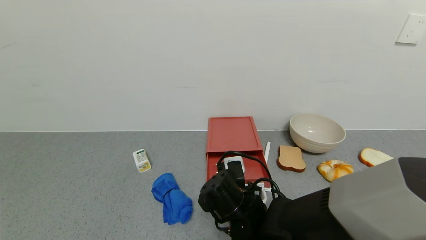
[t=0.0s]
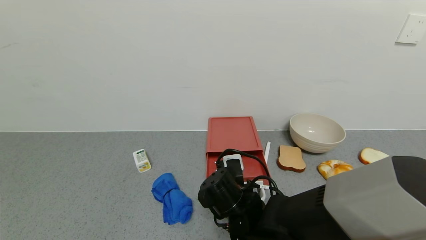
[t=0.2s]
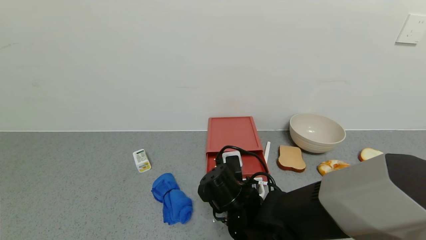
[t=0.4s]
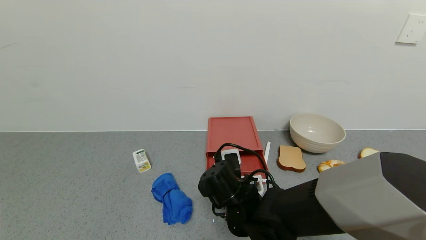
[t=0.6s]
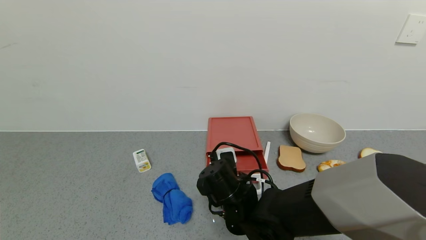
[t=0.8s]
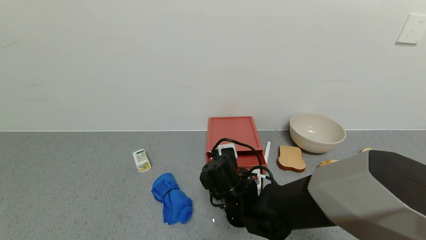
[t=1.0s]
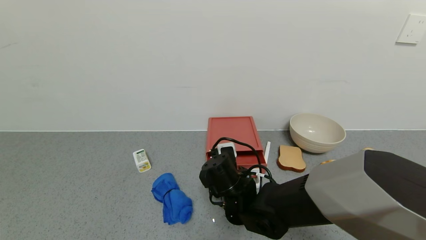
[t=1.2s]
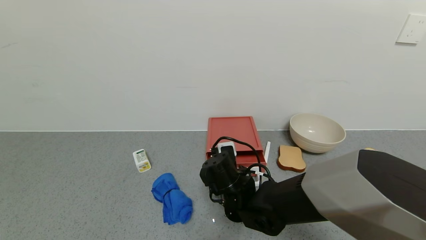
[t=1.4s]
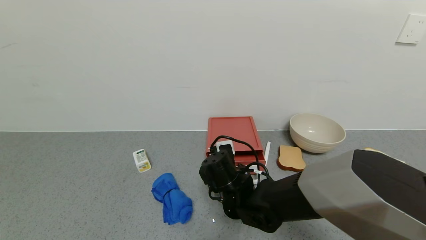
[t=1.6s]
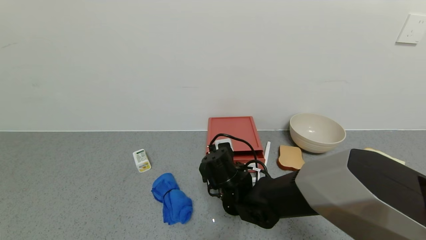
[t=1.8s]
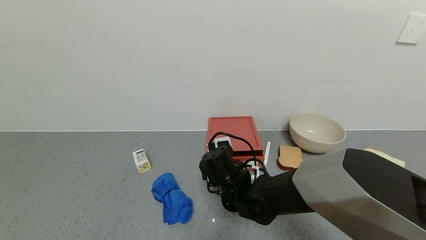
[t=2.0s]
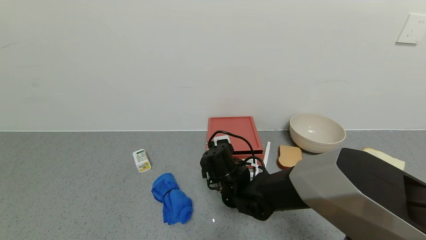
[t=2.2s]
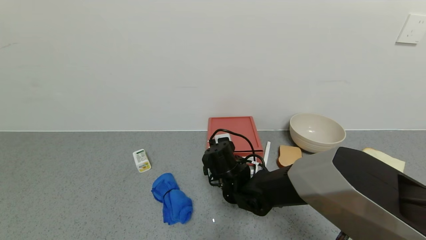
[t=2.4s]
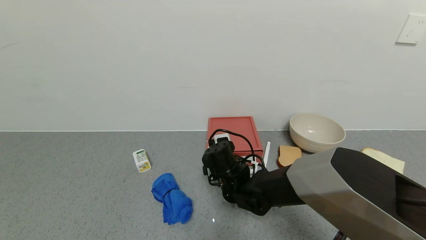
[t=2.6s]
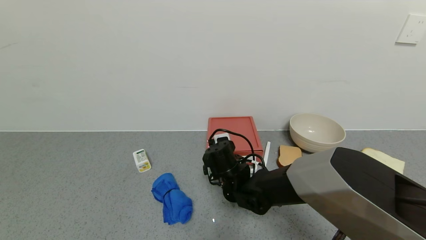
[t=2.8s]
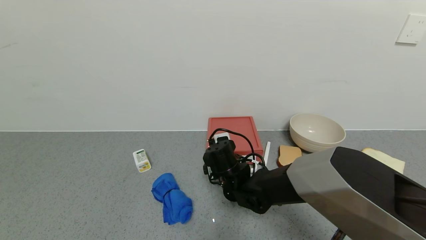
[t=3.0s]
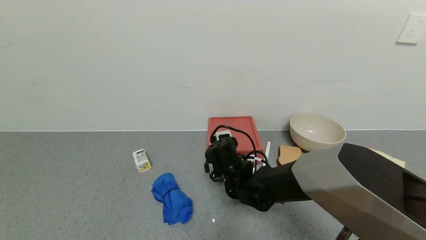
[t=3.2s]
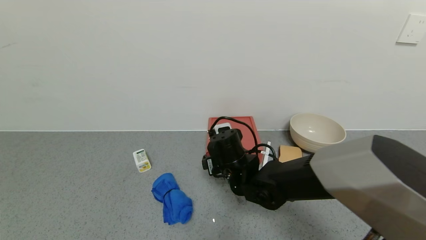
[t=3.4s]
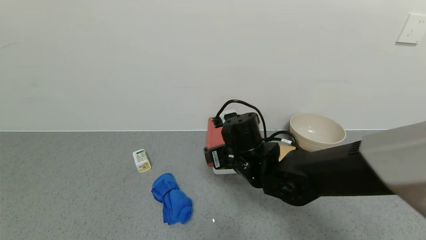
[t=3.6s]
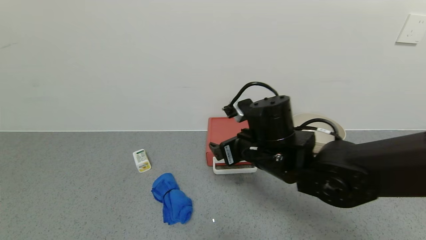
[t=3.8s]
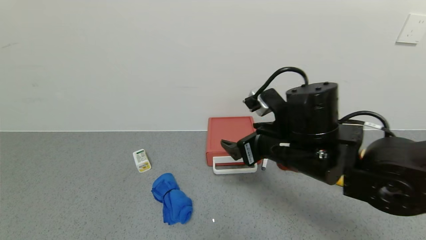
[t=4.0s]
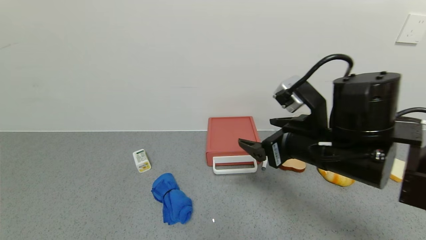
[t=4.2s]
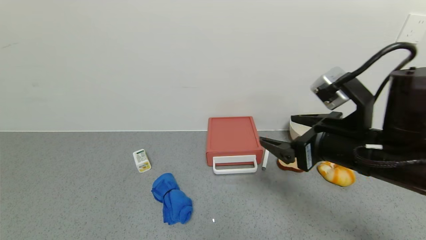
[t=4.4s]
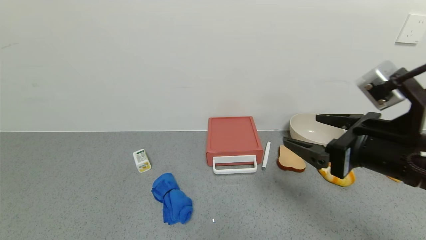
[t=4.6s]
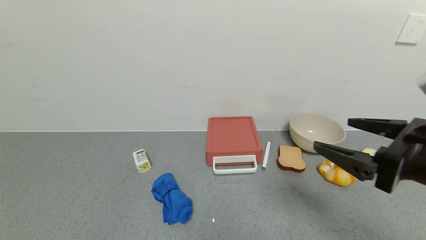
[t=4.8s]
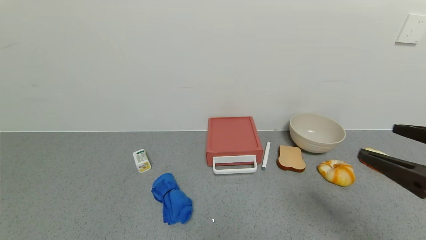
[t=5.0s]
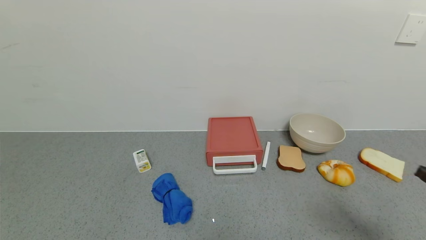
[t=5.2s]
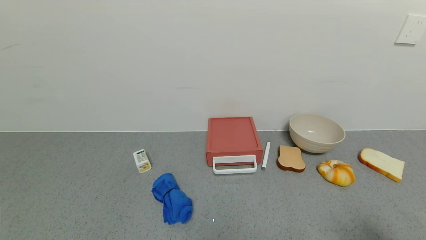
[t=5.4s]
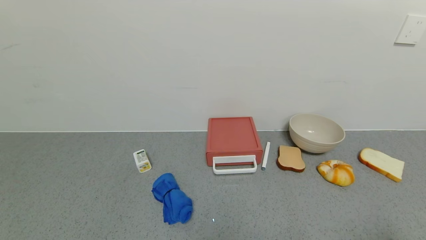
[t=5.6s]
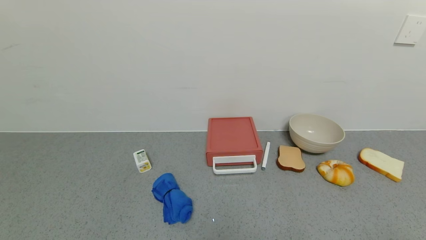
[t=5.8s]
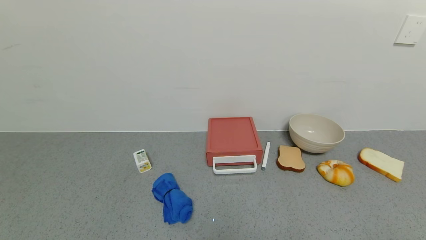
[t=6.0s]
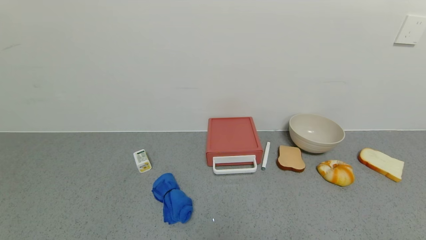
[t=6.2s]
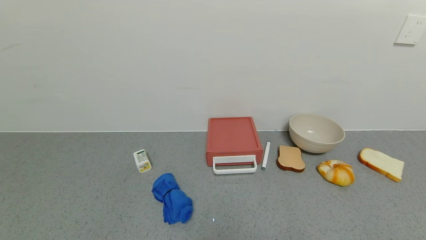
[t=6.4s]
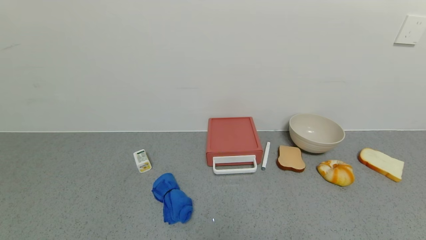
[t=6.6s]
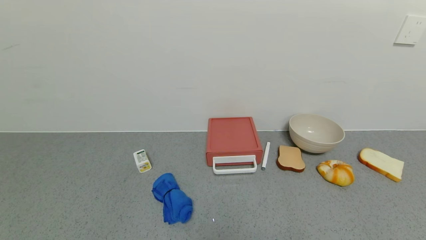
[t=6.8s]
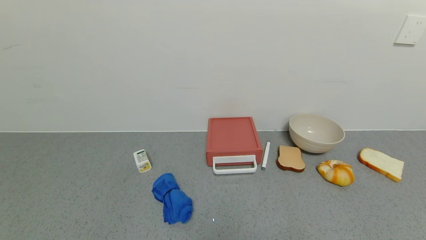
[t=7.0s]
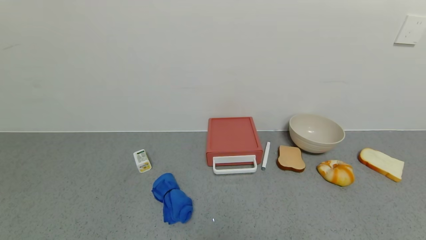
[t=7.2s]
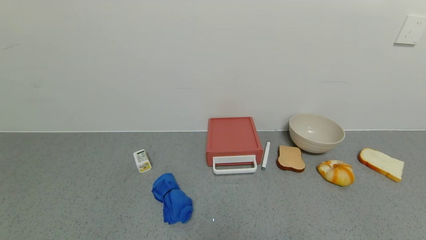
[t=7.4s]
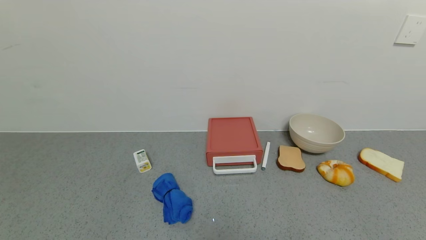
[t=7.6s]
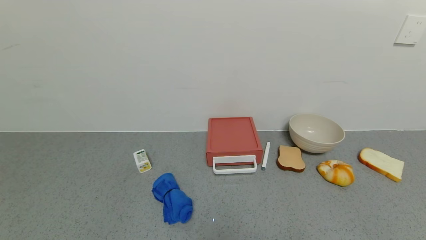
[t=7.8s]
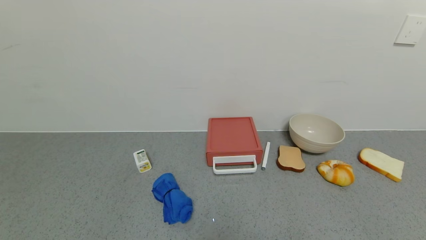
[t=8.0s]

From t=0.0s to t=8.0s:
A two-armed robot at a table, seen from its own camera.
Task of the whole recording: use the gripper to open the drawer and close the red drawer.
Step, from t=0.0s to t=3.8s: Close the red drawer with the right gripper.
From t=0.0s to t=1.6s: The right gripper is displaced forward by about 5 cm.
From t=1.6s to t=3.2s: The grippers stay close to where they were, moving slightly.
From t=3.2s to t=4.8s: The right gripper goes approximately 35 cm to the right, backward and upward.
From t=4.8s to t=6.4s: The right gripper travels backward and to the right by roughly 25 cm.
